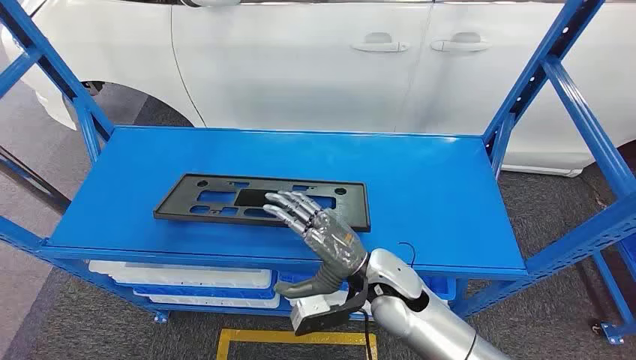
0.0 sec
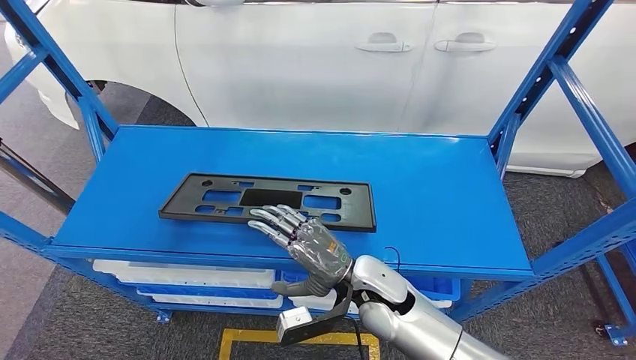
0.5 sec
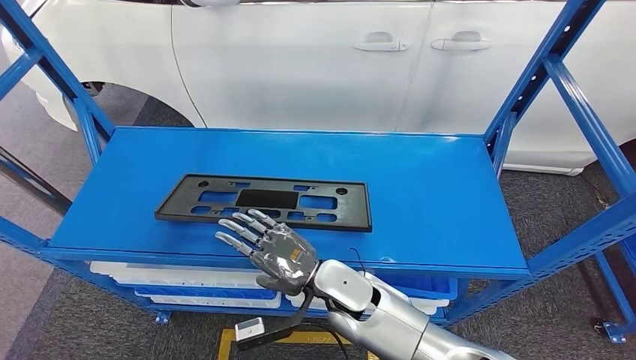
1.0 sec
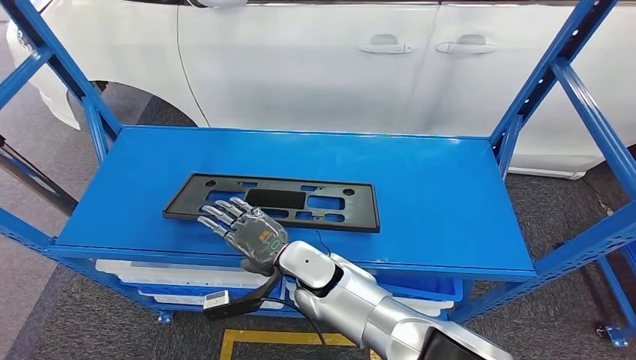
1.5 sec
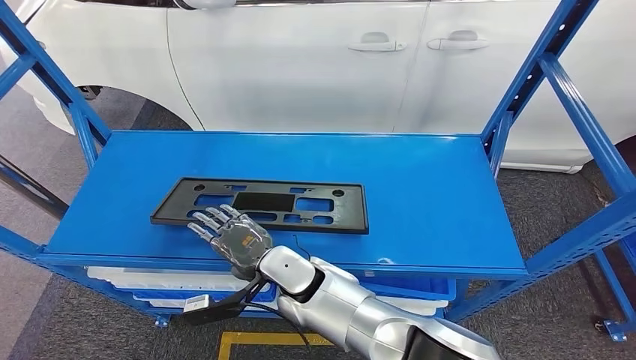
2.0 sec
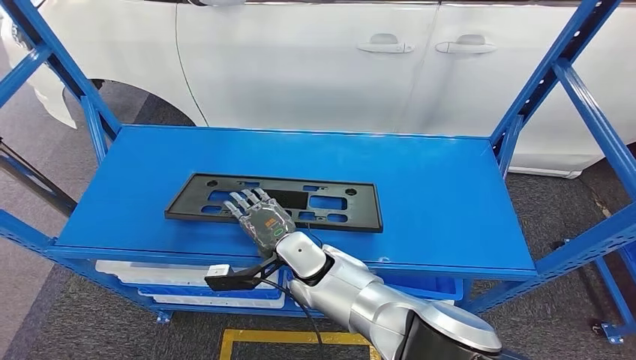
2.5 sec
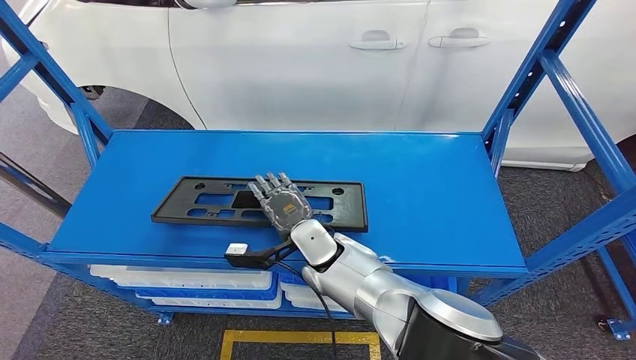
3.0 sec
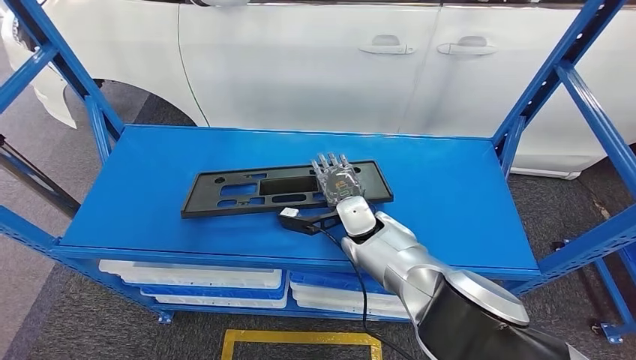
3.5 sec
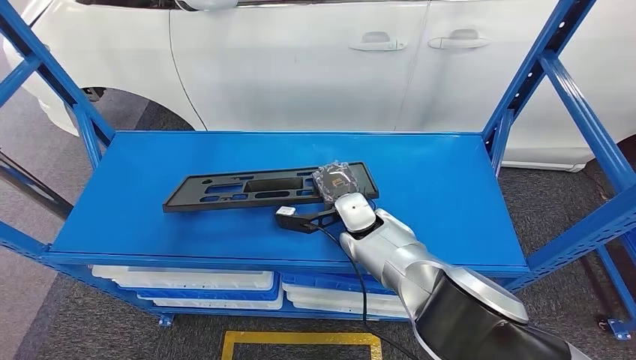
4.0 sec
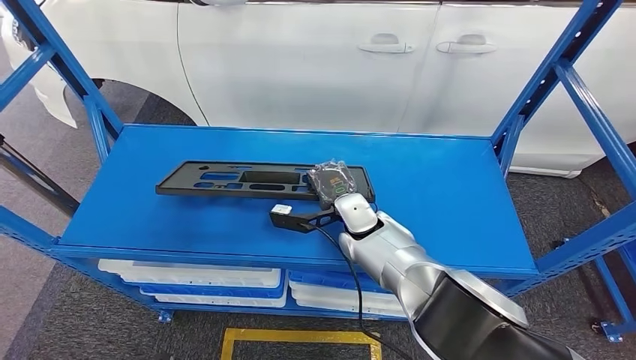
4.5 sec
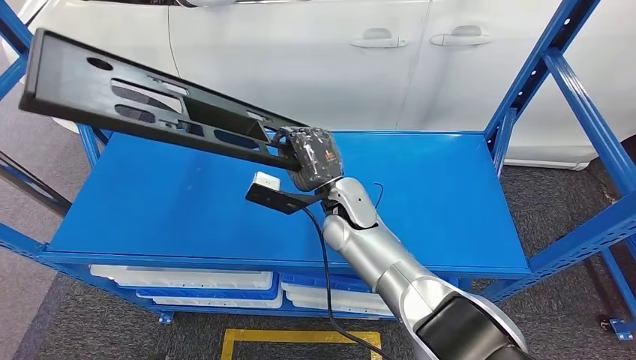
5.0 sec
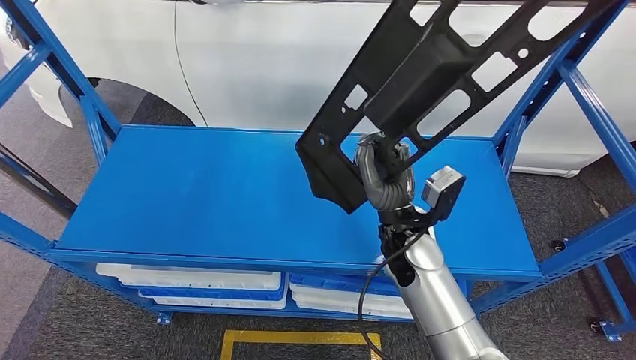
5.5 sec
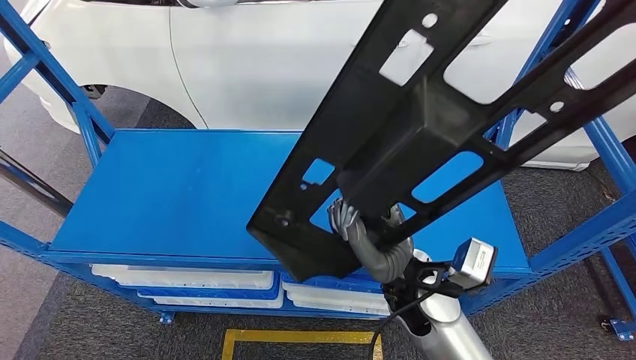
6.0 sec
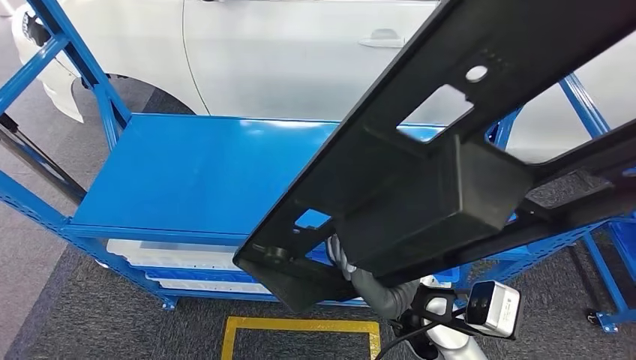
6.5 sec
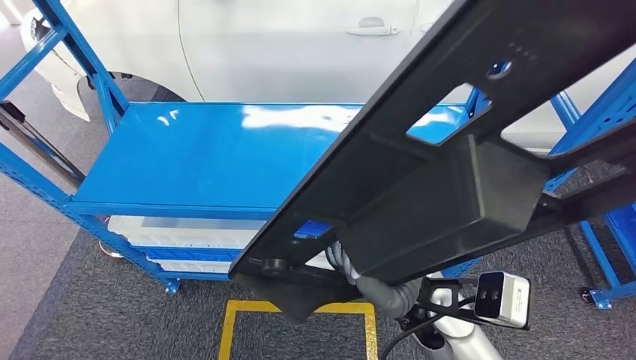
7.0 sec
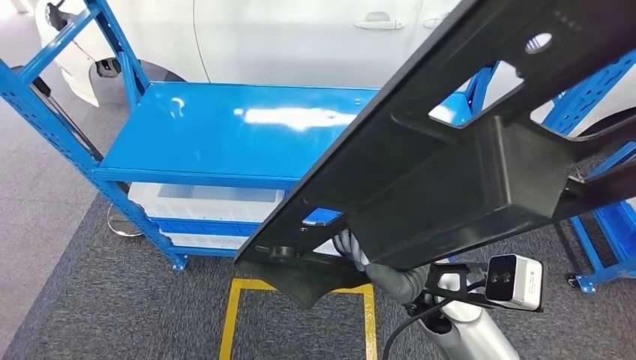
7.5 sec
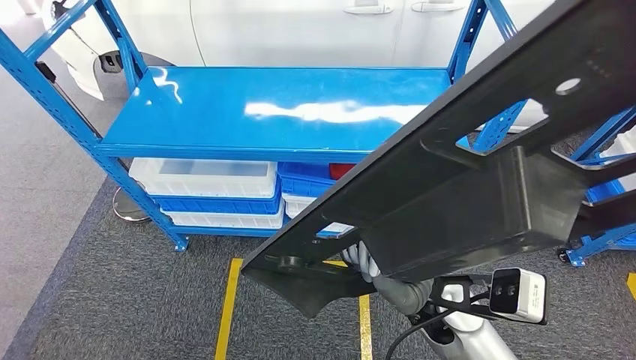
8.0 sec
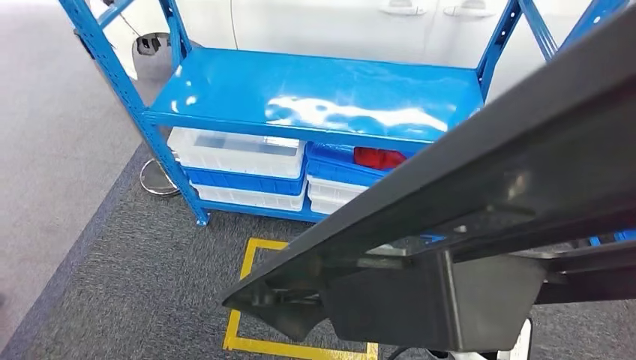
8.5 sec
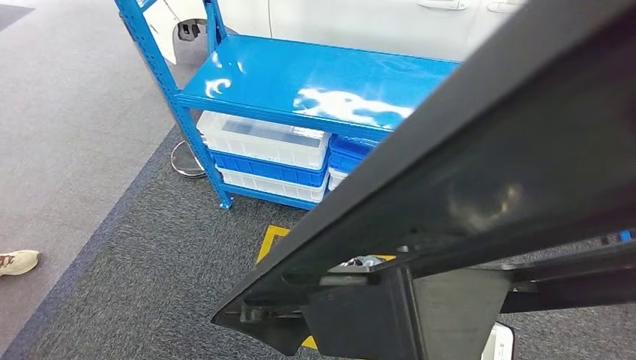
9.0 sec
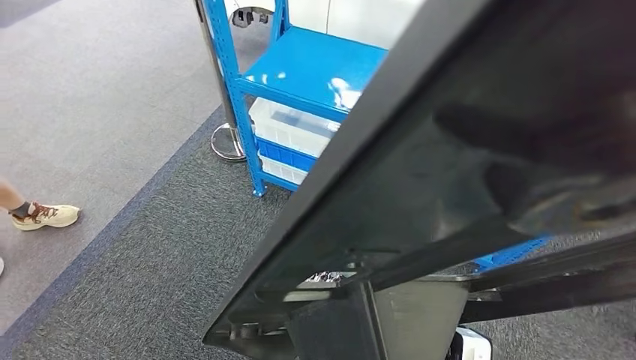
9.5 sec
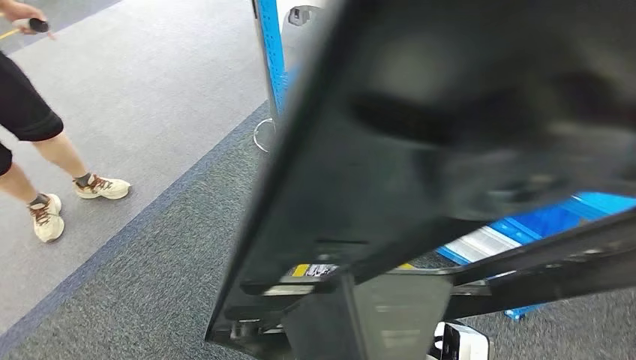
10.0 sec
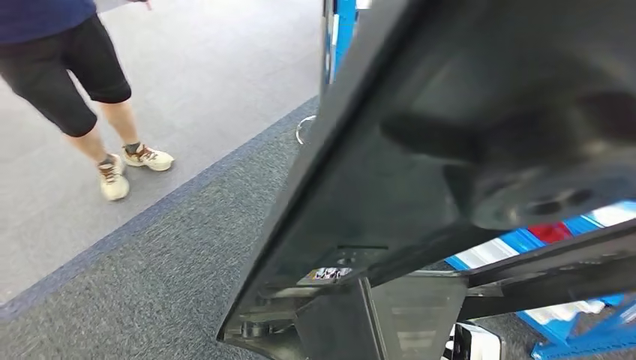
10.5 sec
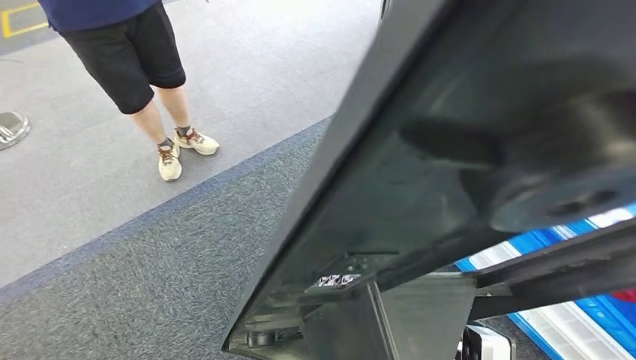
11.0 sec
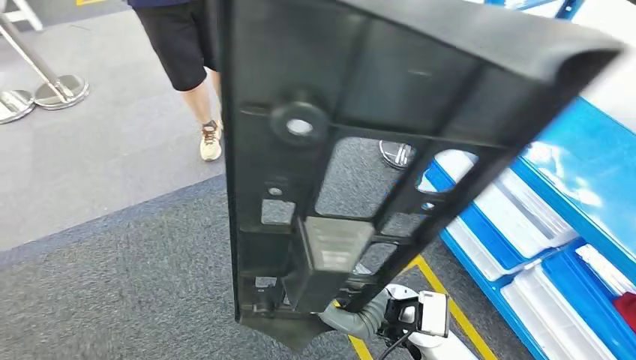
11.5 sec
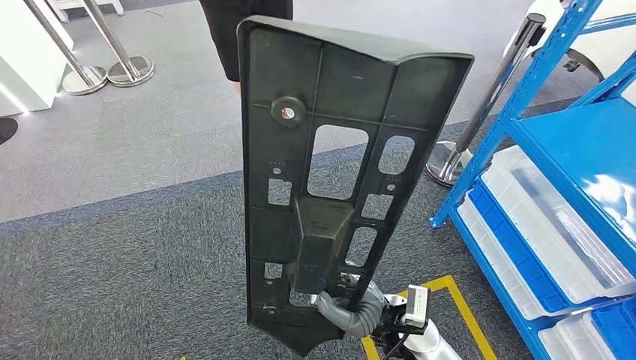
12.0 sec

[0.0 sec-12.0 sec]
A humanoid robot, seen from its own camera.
Step, 0.0 sec to 6.0 sec: Pick up the small component from the shelf.

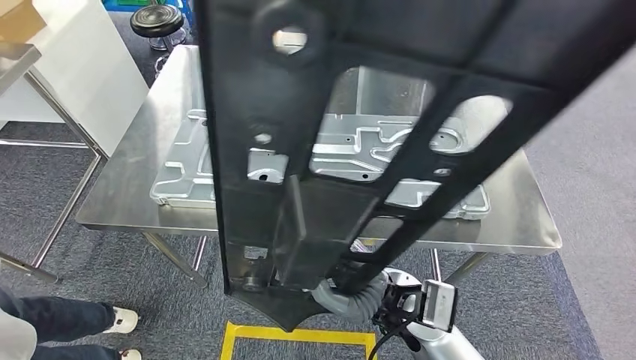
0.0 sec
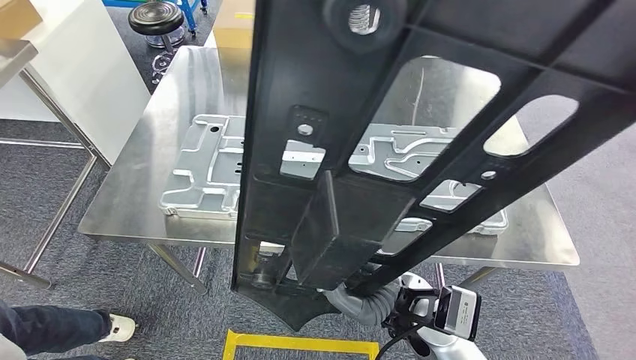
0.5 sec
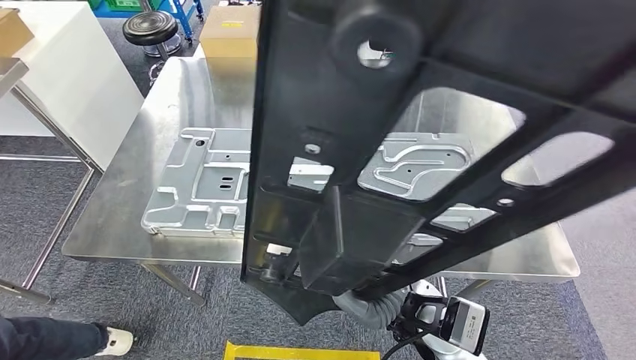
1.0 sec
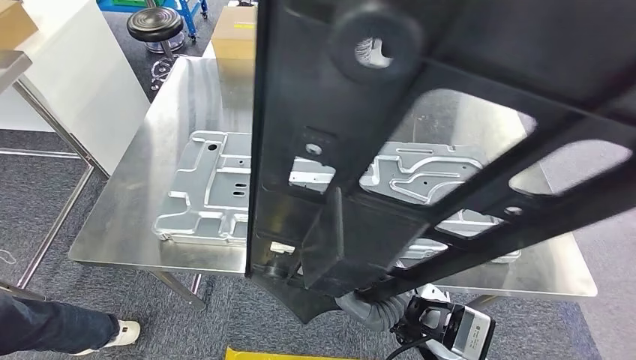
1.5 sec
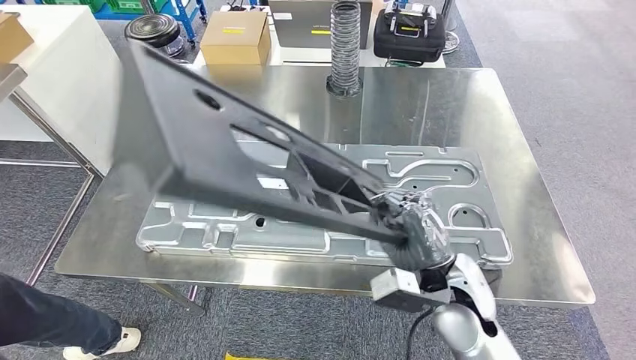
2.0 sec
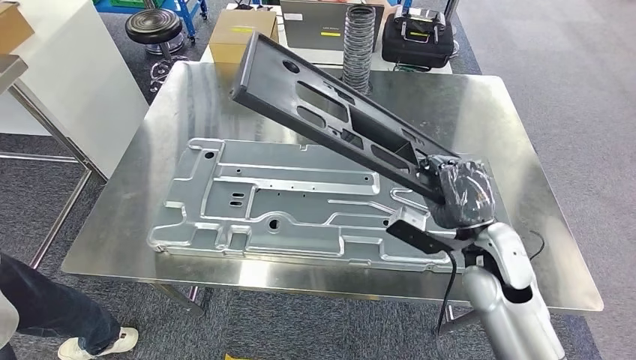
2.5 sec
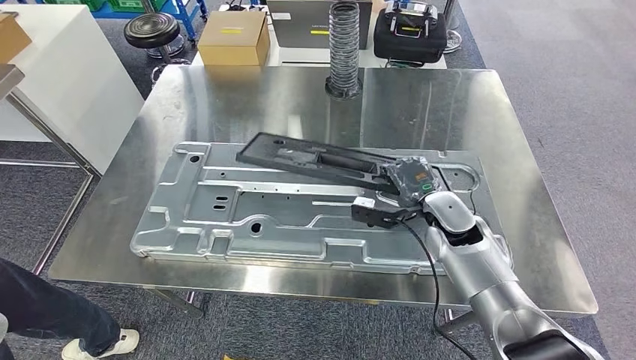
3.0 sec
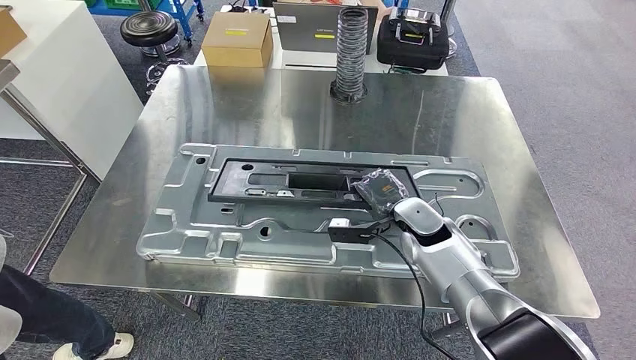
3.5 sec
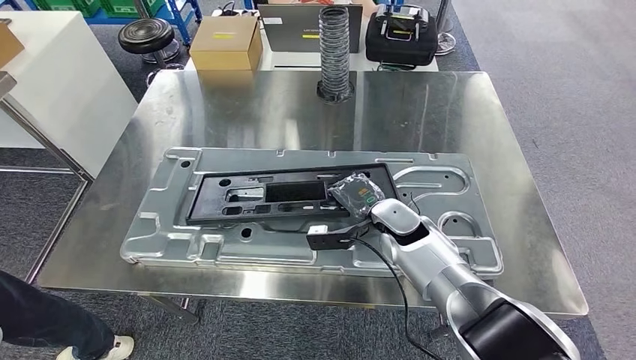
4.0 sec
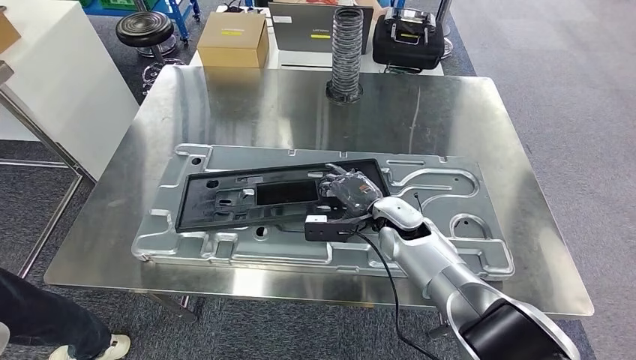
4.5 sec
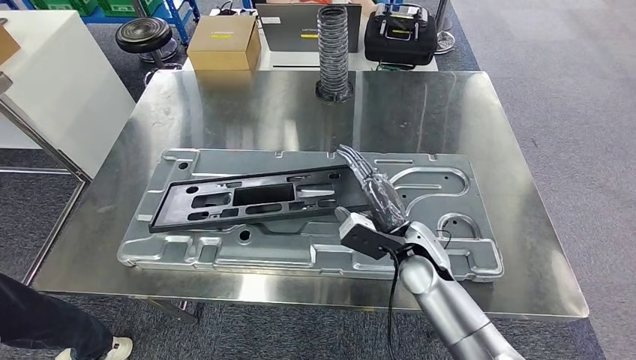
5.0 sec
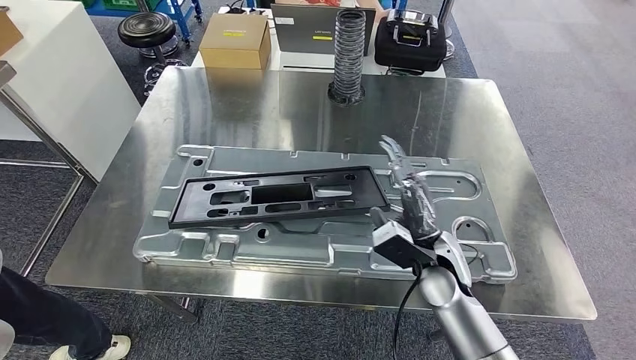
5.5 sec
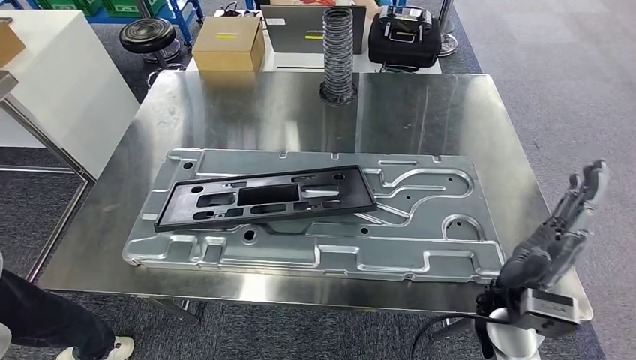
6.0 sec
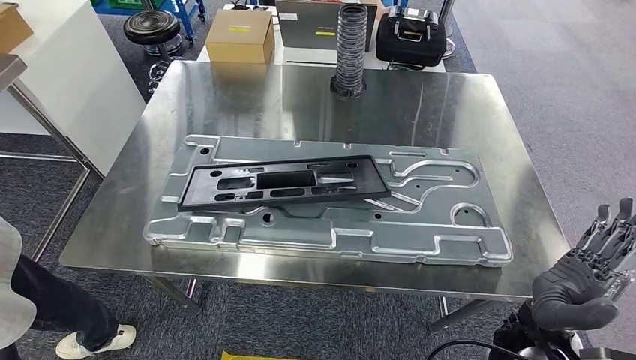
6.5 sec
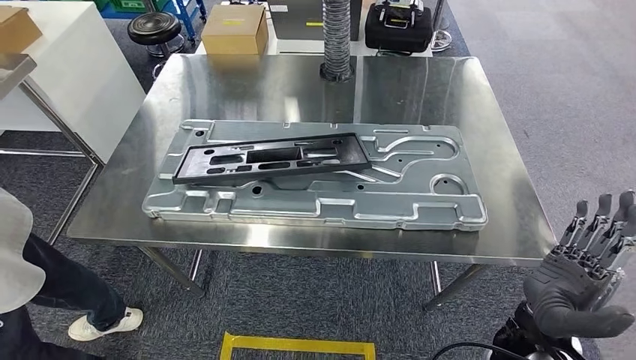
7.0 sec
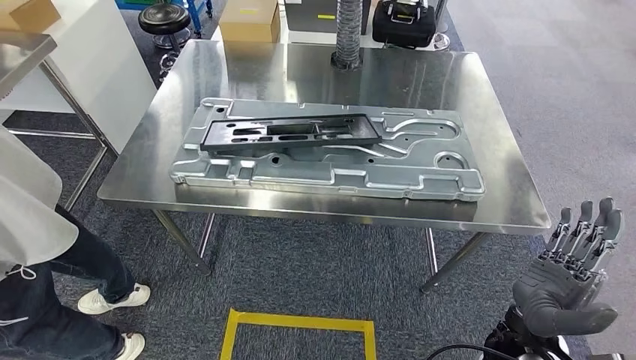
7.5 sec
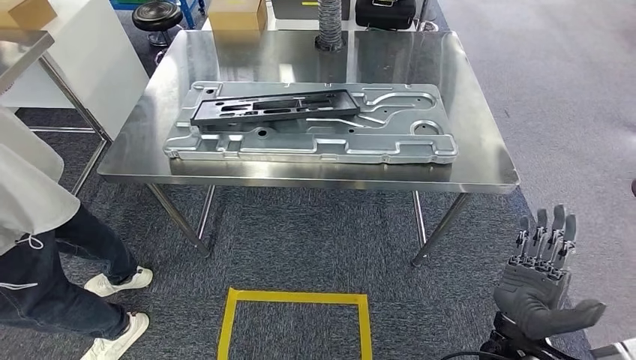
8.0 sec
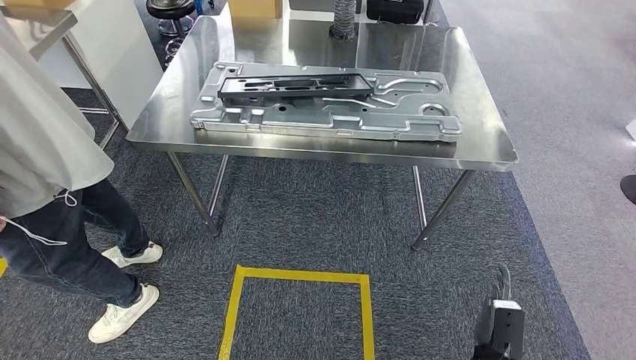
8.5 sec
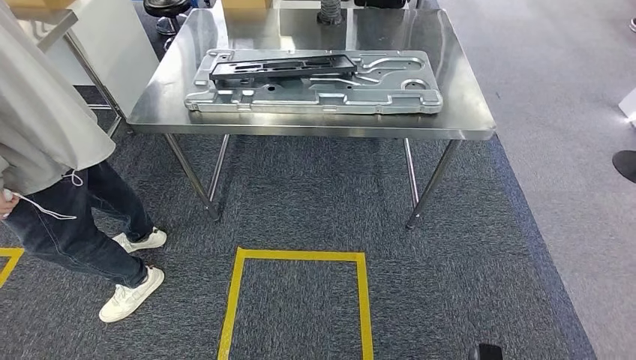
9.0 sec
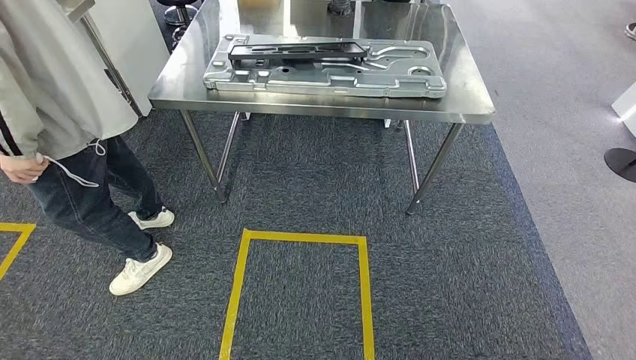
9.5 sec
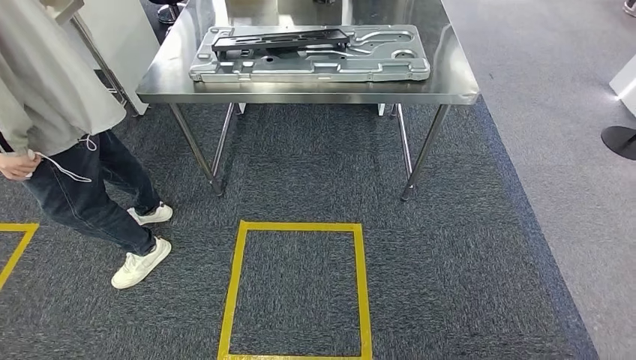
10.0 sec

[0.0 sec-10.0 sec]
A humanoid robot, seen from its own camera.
Step, 2.0 sec to 6.0 sec: Insert the small component into the corresponding slot on the workbench.
Step, 6.5 sec to 10.0 sec: Return to the initial position at the workbench.
